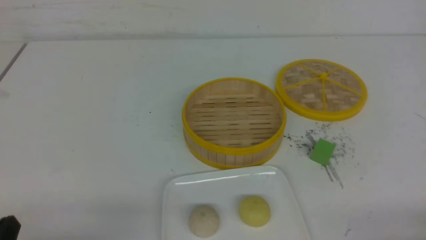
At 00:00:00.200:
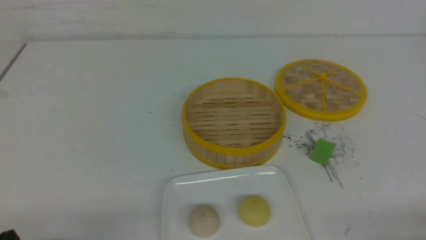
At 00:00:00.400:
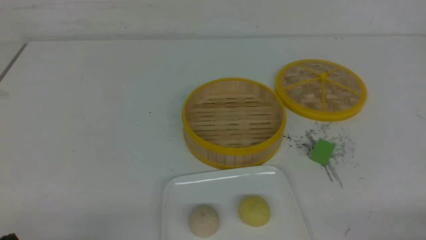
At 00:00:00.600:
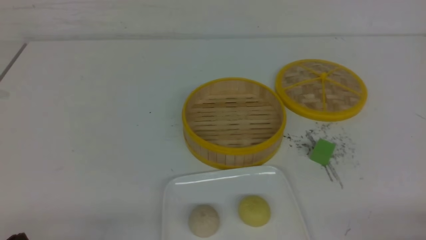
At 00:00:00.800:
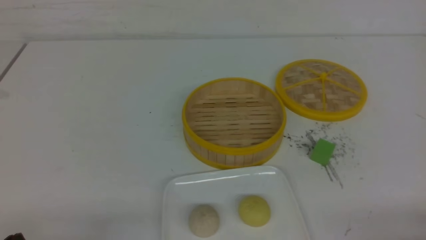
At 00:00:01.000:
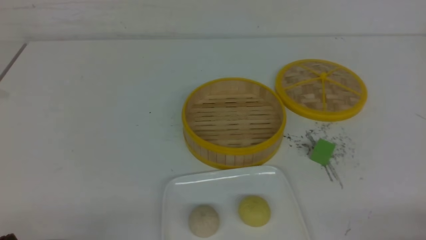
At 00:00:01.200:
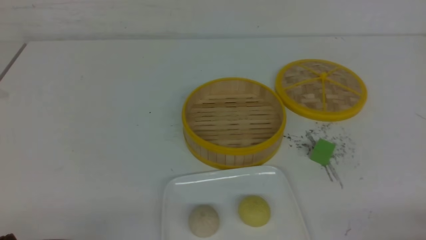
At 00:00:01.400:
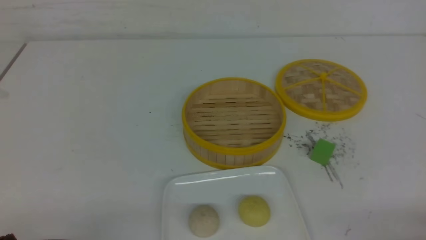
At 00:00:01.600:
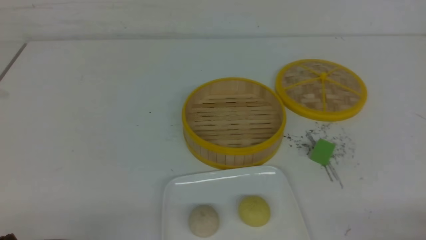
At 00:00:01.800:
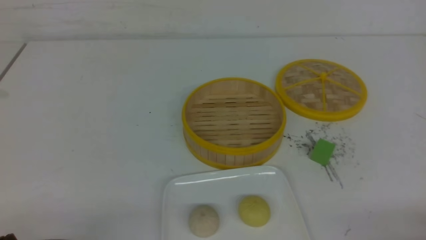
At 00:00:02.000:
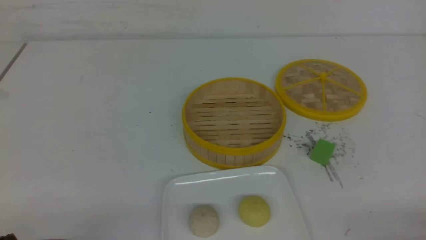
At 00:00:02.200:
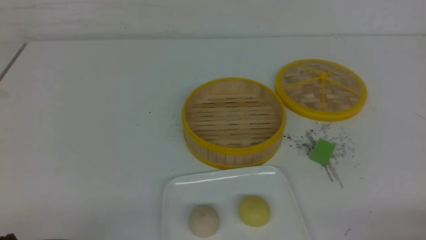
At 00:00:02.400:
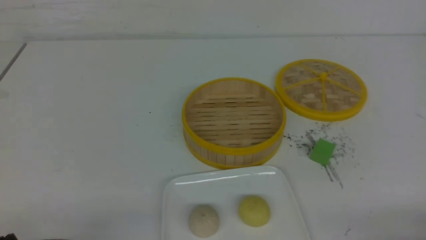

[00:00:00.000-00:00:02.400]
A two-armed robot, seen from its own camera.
00:00:01.200 to 00:00:02.400: Both grippers stay about where they are.
